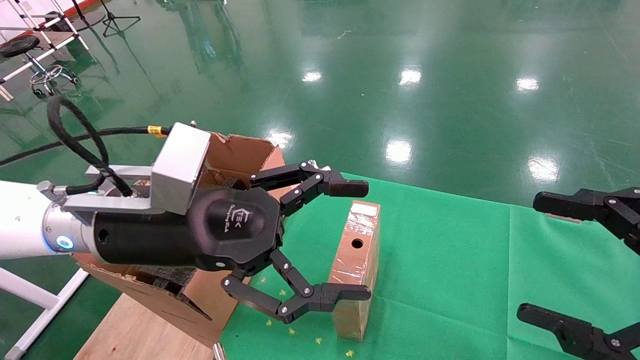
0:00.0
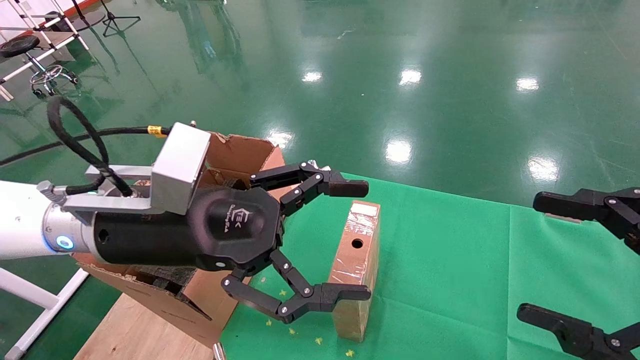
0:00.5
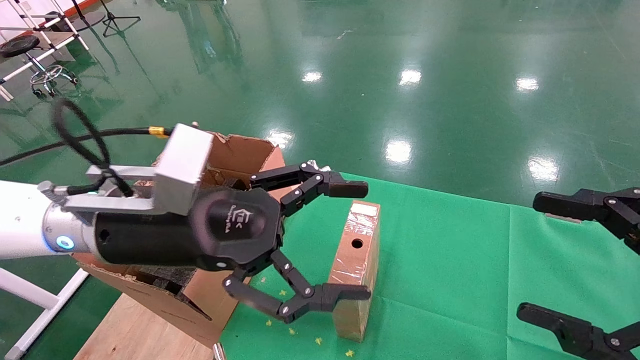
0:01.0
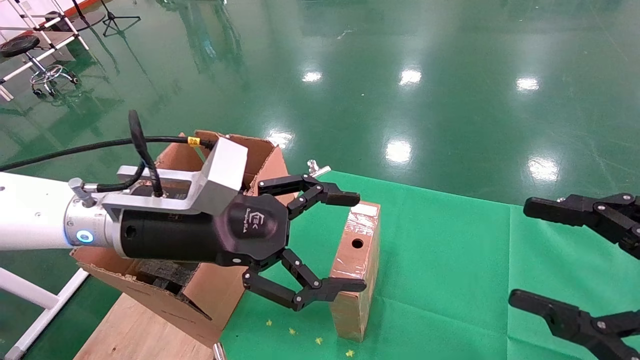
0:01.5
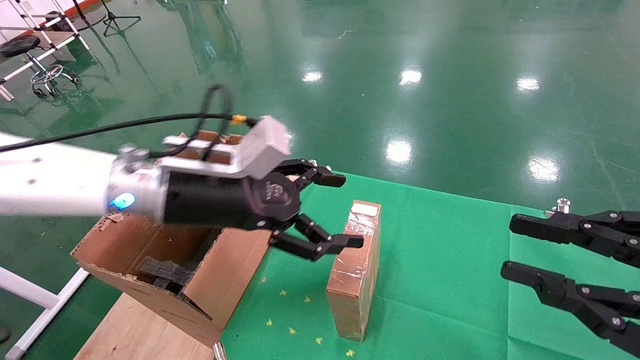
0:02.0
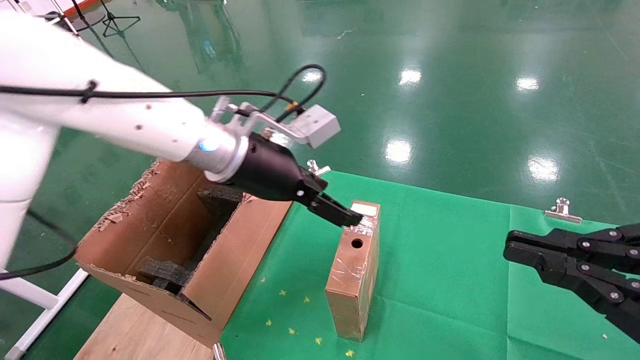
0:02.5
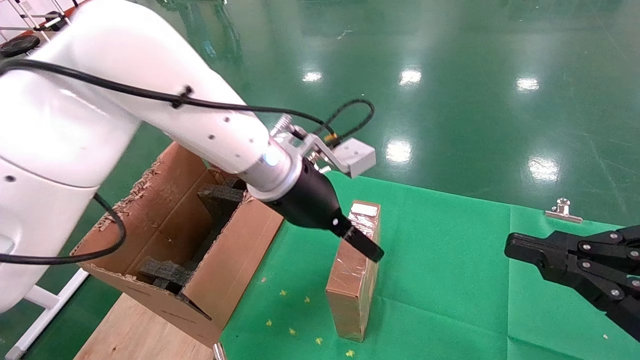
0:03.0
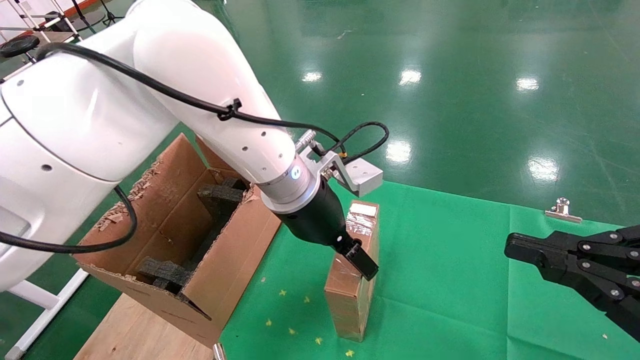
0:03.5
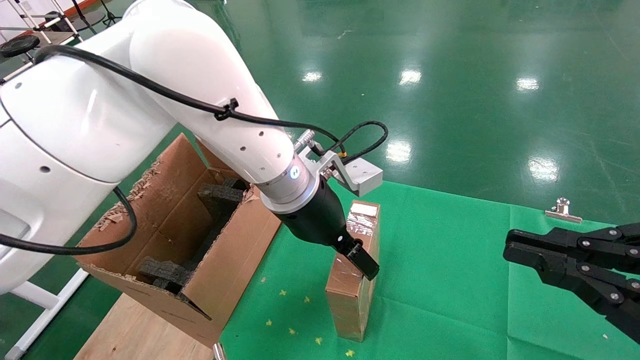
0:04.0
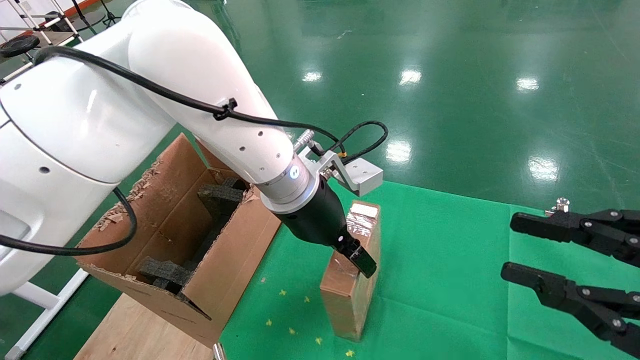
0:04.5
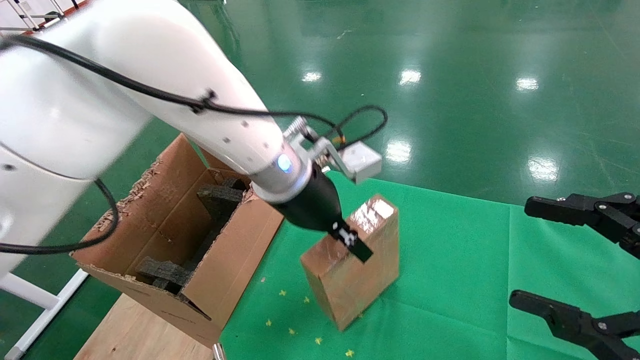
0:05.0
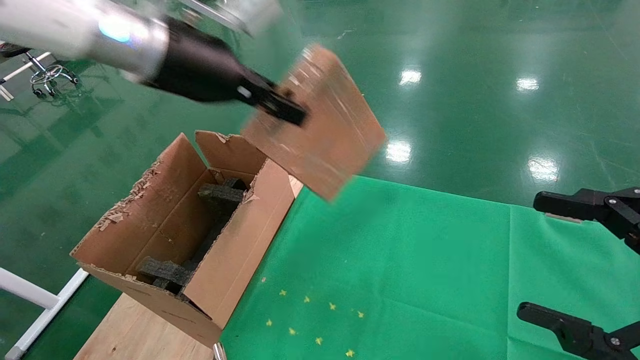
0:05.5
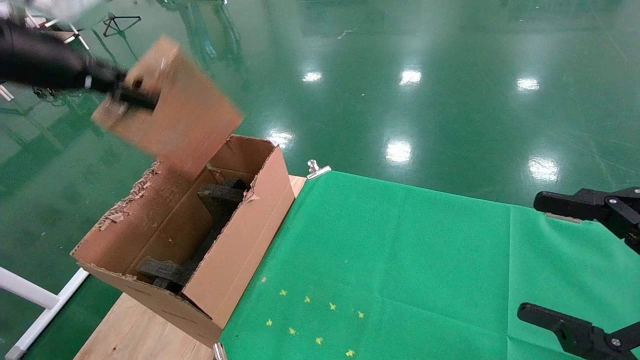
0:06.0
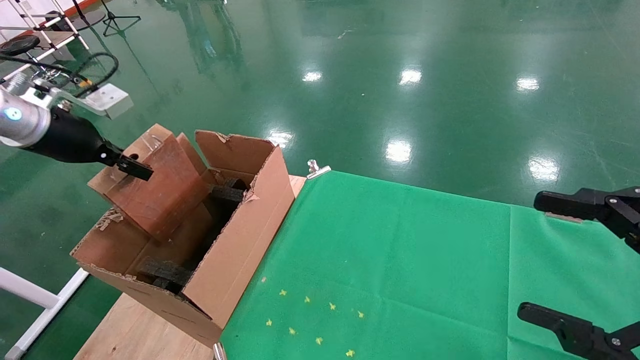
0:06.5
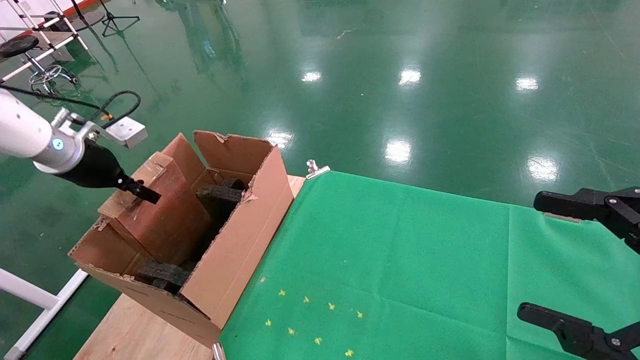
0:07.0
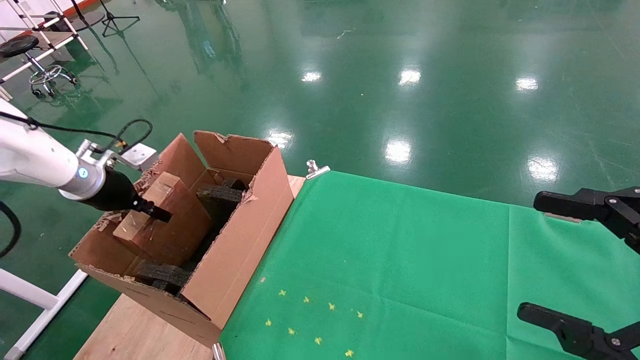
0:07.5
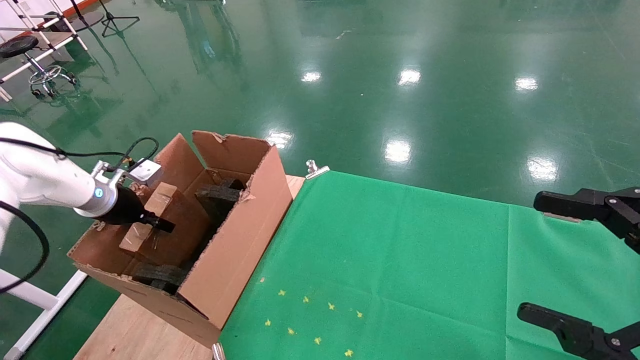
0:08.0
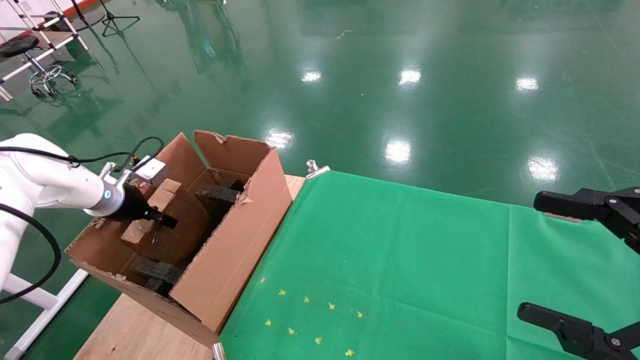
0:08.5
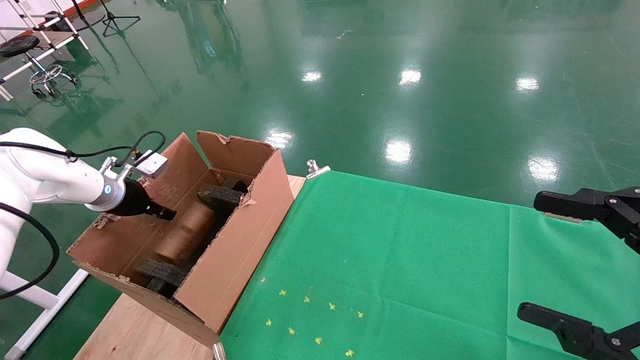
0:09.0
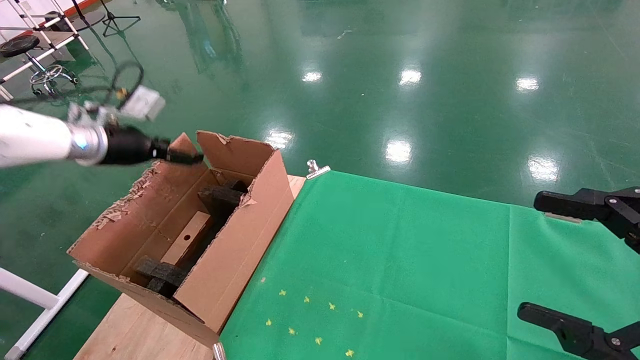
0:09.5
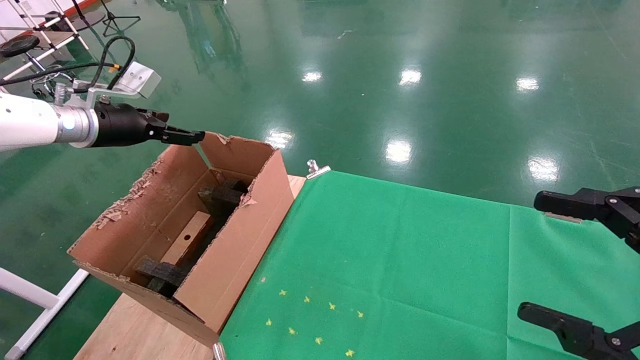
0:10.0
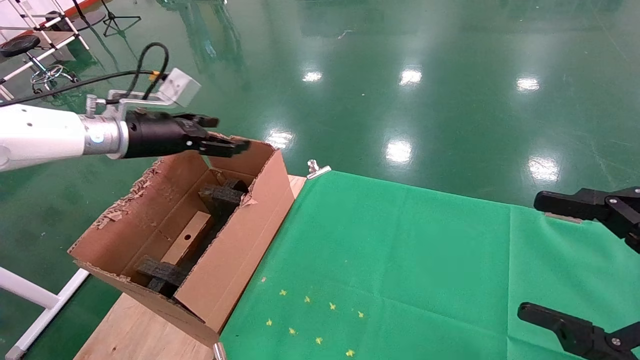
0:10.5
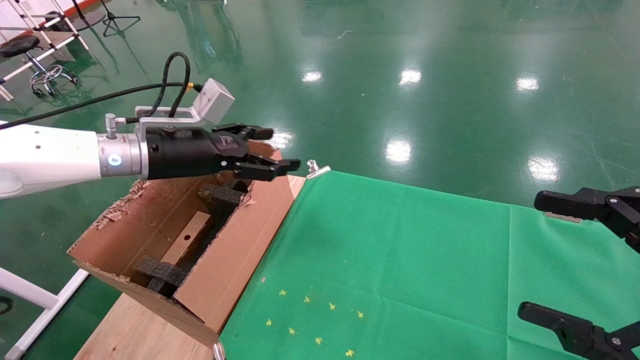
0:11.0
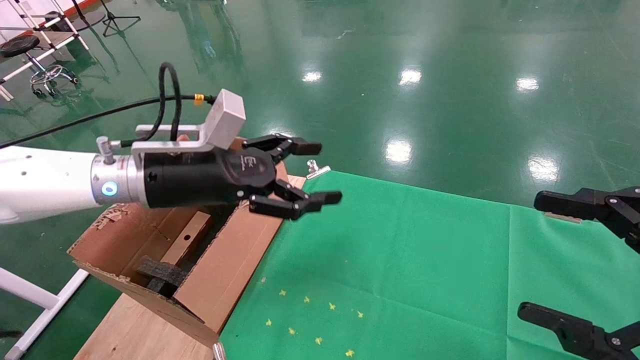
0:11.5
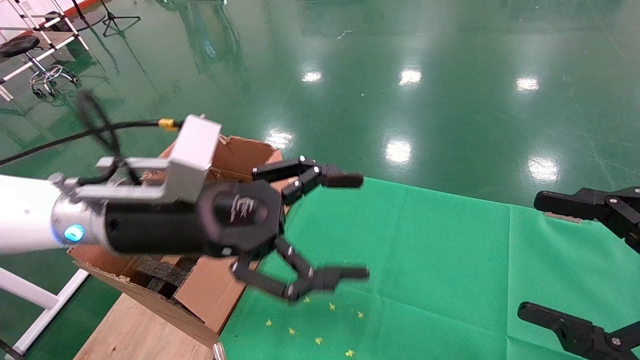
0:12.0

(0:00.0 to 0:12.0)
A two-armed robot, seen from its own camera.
Task of the whole recording: using a robotic arm to pick up a cardboard box and palace it the carton.
Step, 0:01.5 - 0:04.5: Pick up the mouse and the power cord paper box.
Step, 0:05.0 - 0:09.5: Place the mouse and the power cord paper box into the container.
0:00.0 - 0:02.0: The left gripper goes approximately 5 cm forward; the right gripper closes.
0:02.0 - 0:04.0: The right gripper closes its fingers. Meanwhile the left gripper is displaced to the right by about 10 cm.
0:04.0 - 0:06.0: The right gripper opens up, while the left gripper heads to the left and upward, covering some 35 cm, and closes.
0:06.0 - 0:08.0: The left gripper shifts approximately 25 cm downward and forward.
0:08.0 - 0:10.0: The left gripper heads upward, covering approximately 15 cm, and opens its fingers.
0:10.0 - 0:12.0: The left gripper heads to the right and backward, covering some 25 cm.

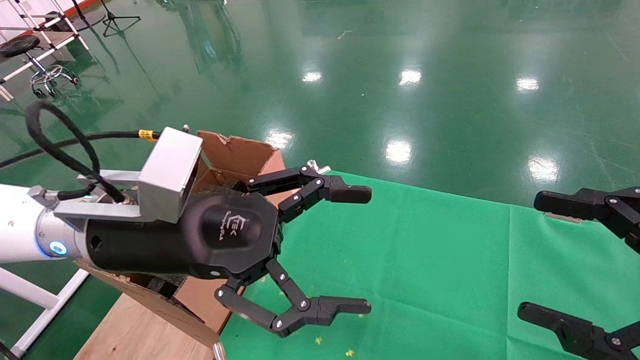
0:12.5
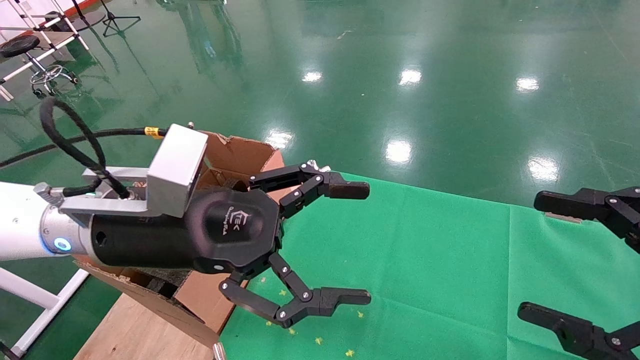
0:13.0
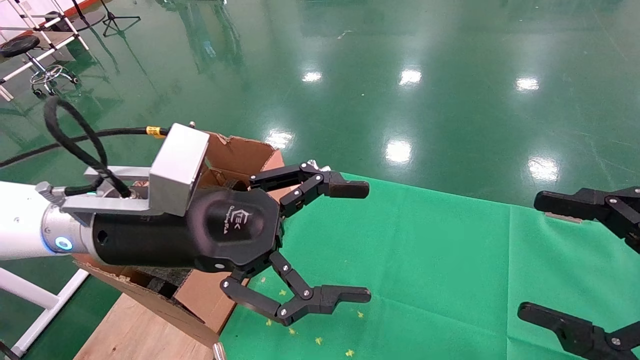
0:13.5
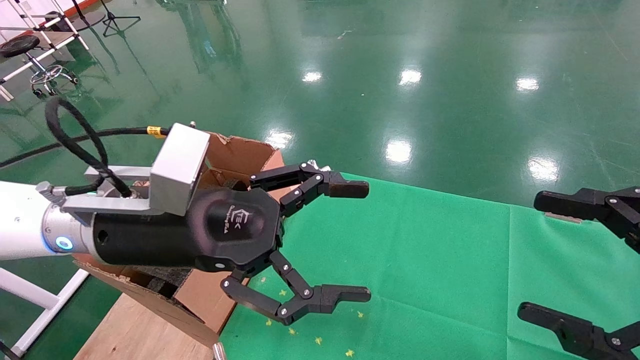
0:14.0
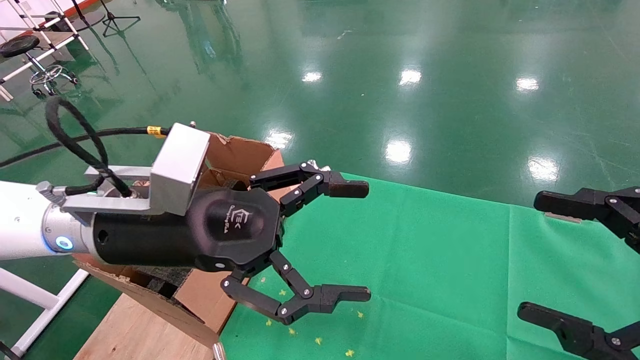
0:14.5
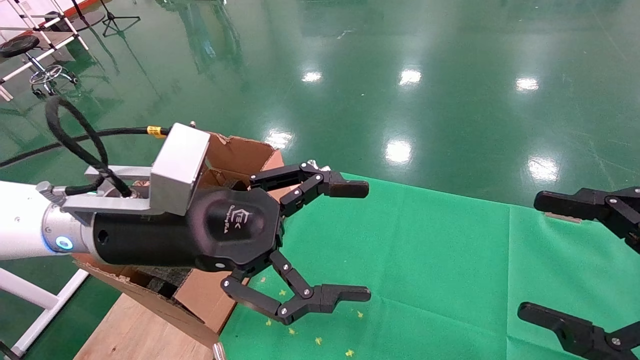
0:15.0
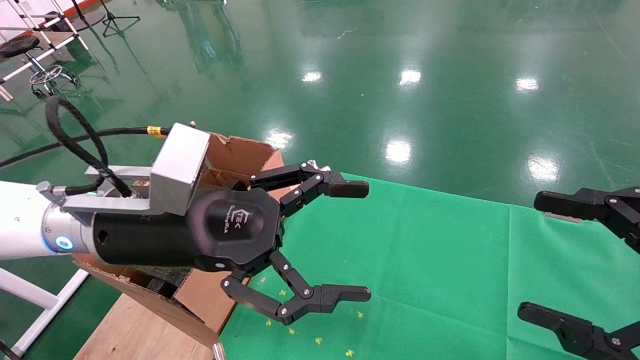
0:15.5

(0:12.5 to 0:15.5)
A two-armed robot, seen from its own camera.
Task of the whole recording: using a robotic arm to pick up a cardboard box and palace it the carton.
0:12.5 - 0:15.5: Both grippers stay put.

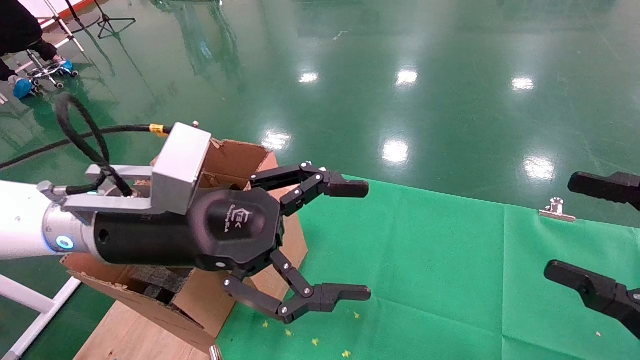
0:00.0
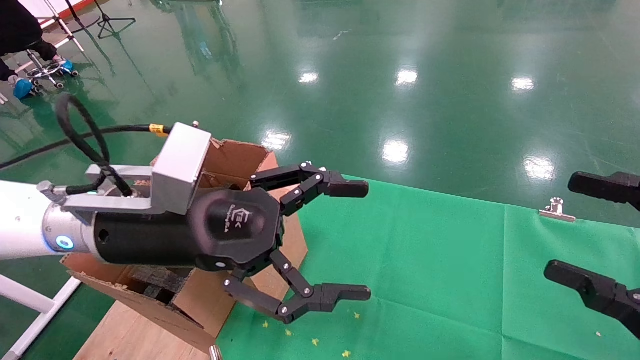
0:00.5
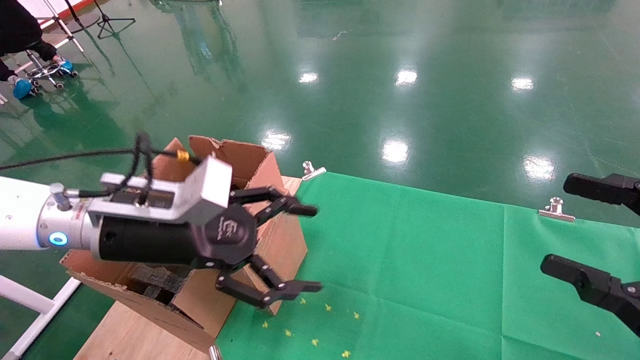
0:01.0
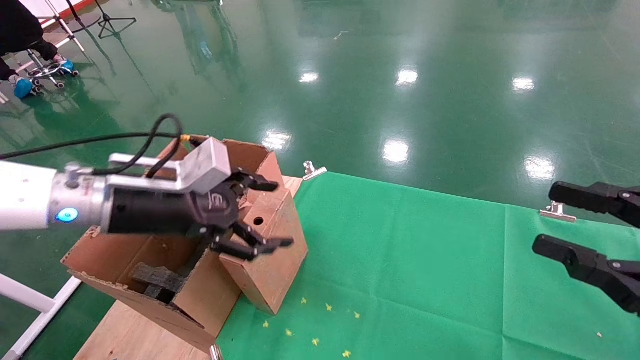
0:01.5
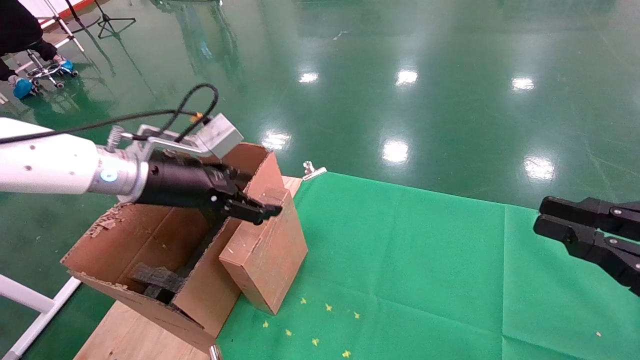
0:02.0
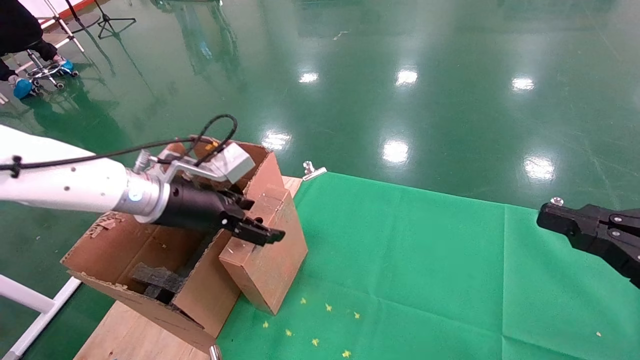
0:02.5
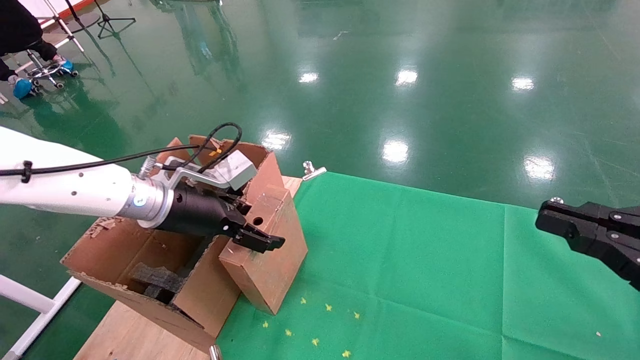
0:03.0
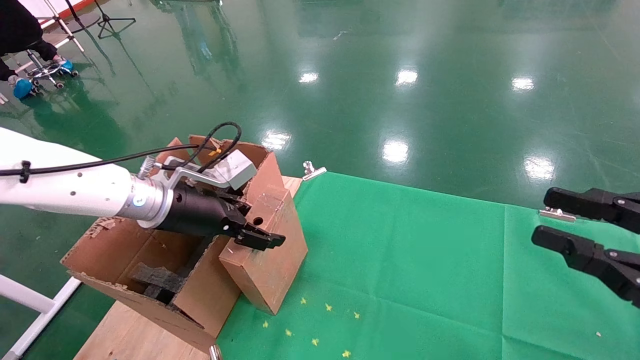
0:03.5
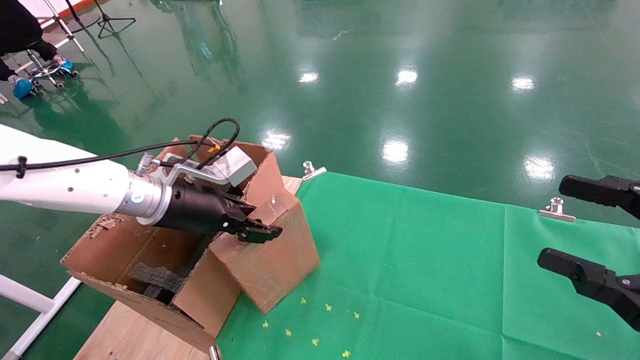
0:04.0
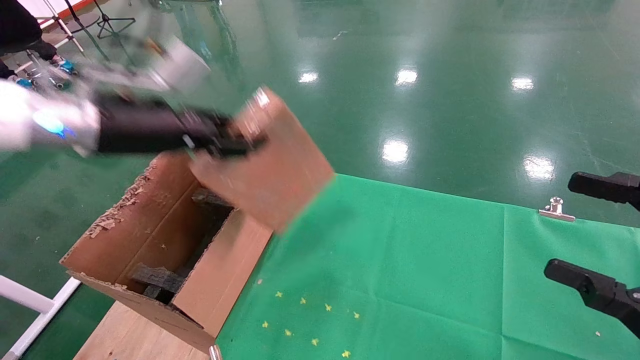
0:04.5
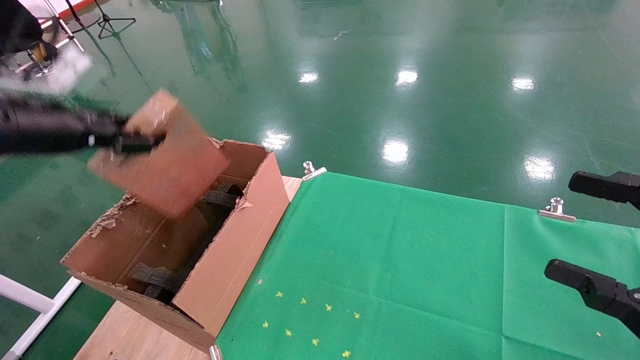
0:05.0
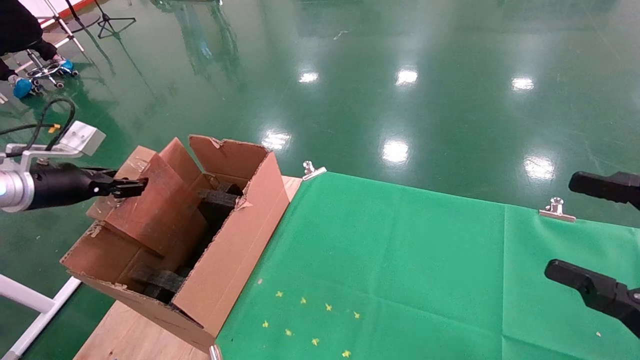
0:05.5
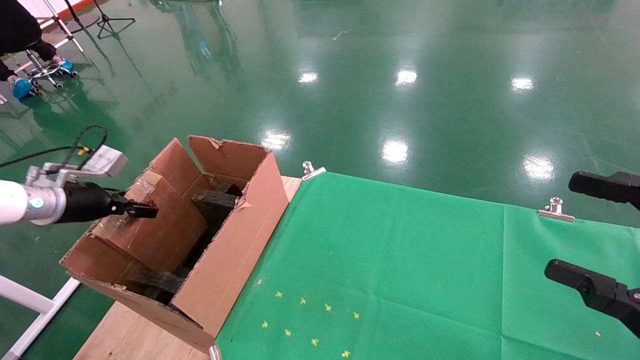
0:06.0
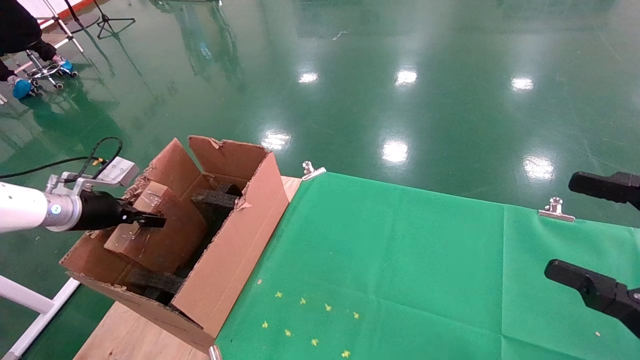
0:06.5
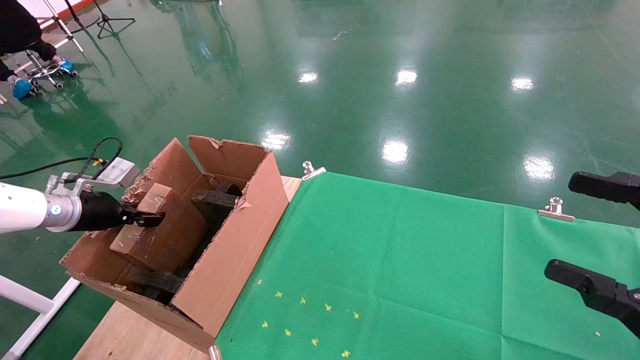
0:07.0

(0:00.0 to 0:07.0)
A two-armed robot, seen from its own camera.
Task of the whole recording: using a robotic arm to pick up a cardboard box and palace it the carton.
Step, 0:01.5 - 0:03.5: Pick up the mouse and the power cord paper box.
0:00.0 - 0:02.0: The right gripper closes up. Meanwhile the left gripper goes about 10 cm forward and to the left.
0:02.0 - 0:03.5: The grippers move only a little.
0:03.5 - 0:05.0: The left gripper goes some 20 cm to the left and upward, and closes its fingers, while the right gripper opens.
0:05.0 - 0:07.0: The left gripper heads downward, forward and to the left, covering about 15 cm.
